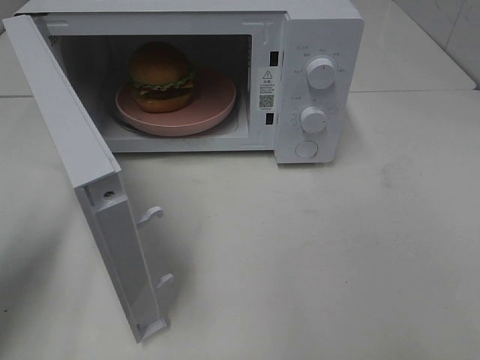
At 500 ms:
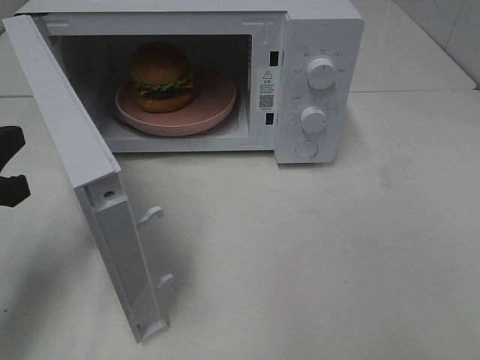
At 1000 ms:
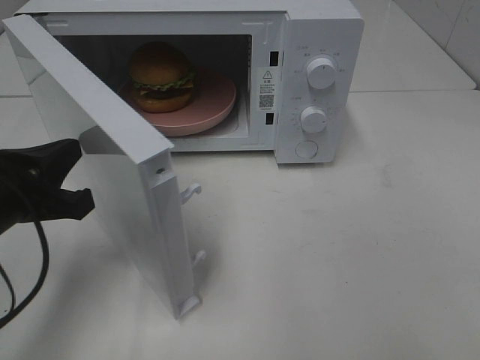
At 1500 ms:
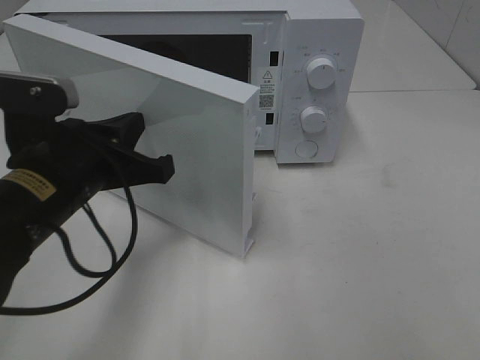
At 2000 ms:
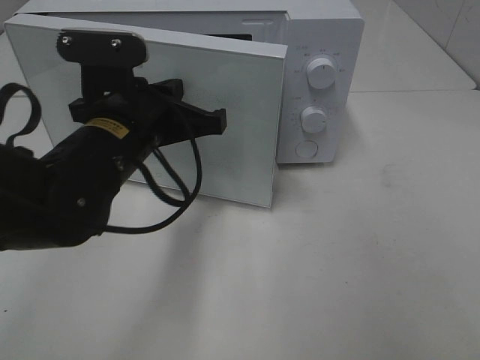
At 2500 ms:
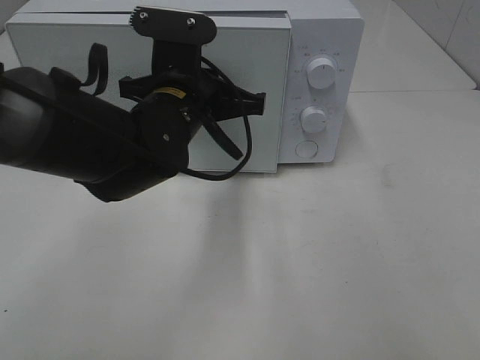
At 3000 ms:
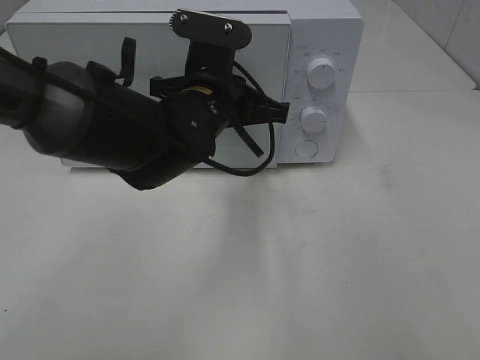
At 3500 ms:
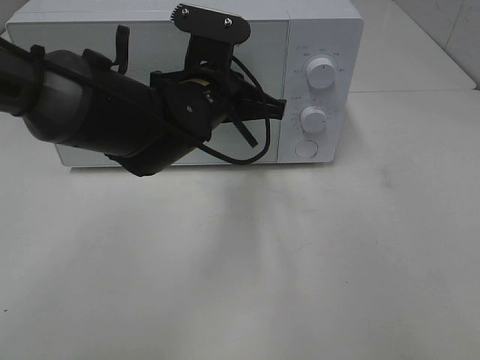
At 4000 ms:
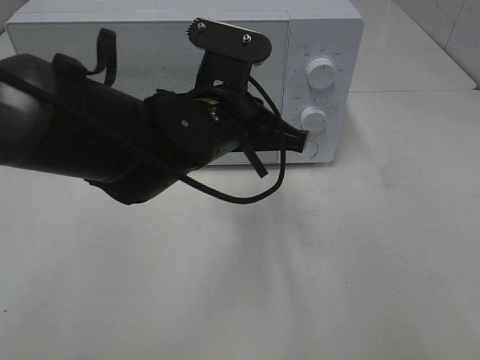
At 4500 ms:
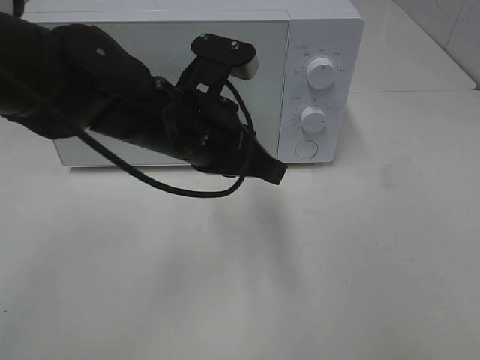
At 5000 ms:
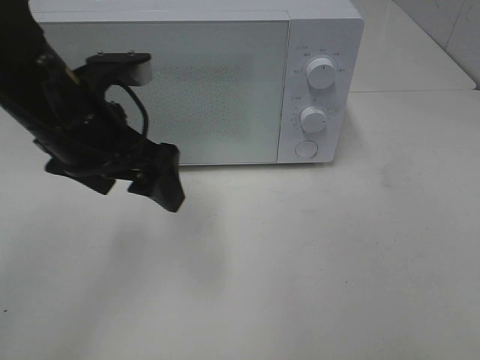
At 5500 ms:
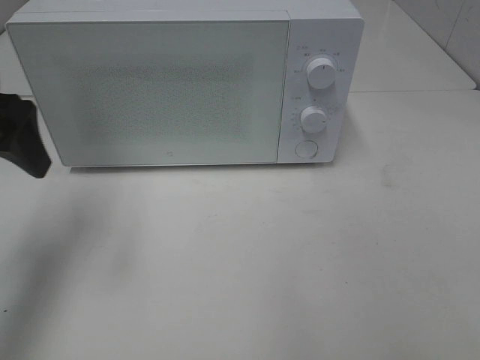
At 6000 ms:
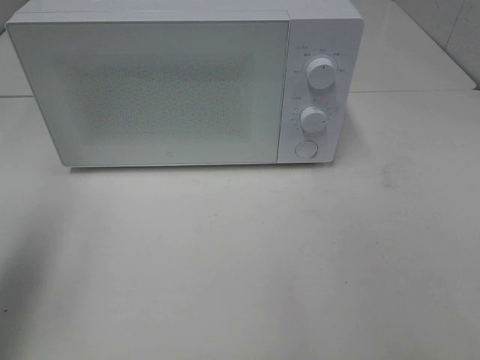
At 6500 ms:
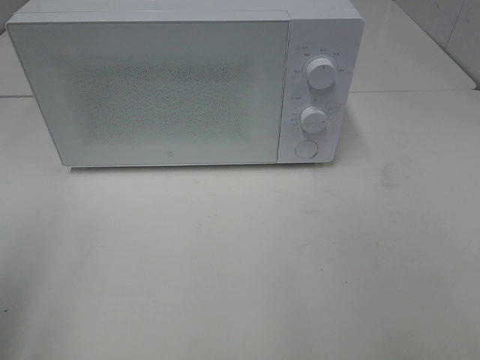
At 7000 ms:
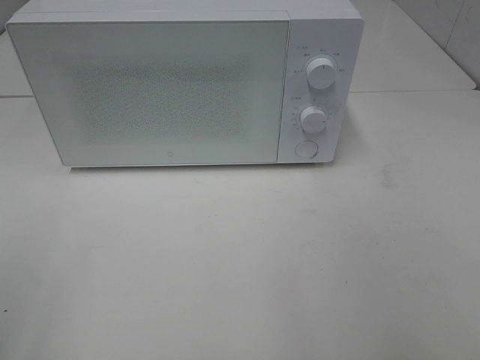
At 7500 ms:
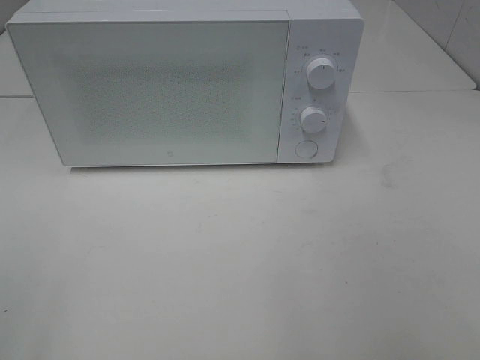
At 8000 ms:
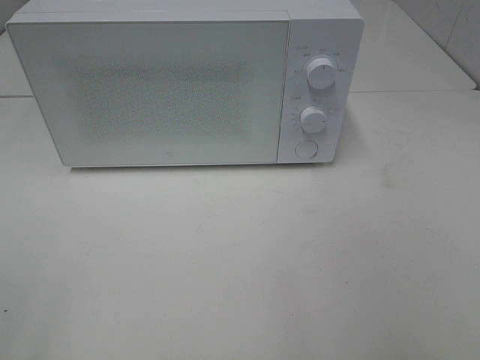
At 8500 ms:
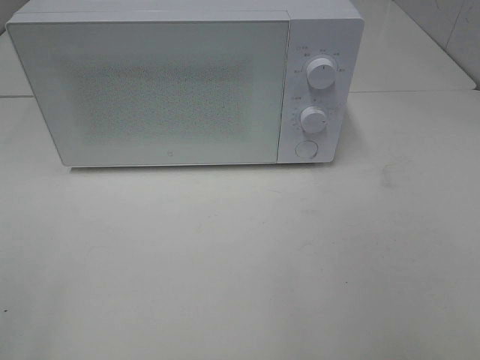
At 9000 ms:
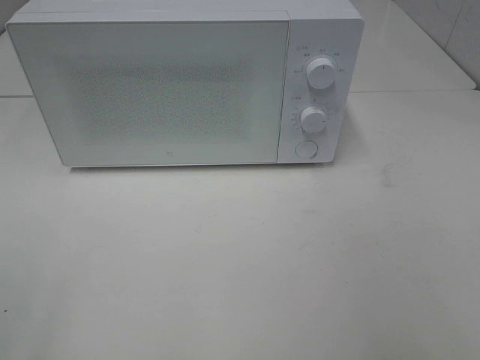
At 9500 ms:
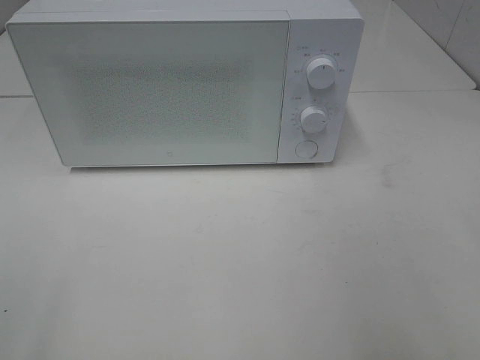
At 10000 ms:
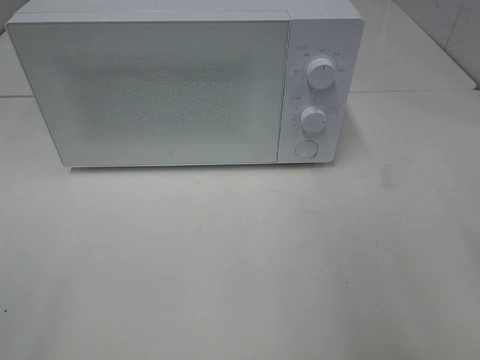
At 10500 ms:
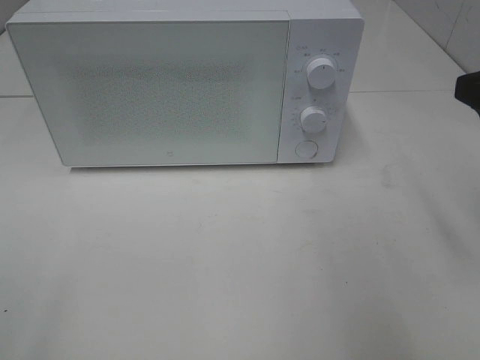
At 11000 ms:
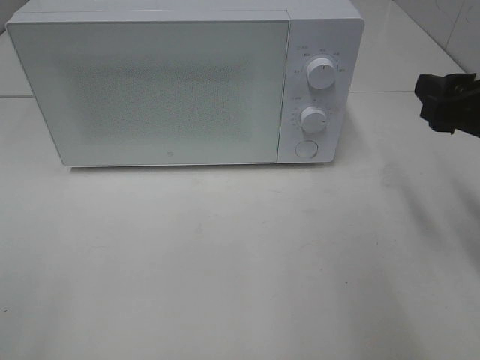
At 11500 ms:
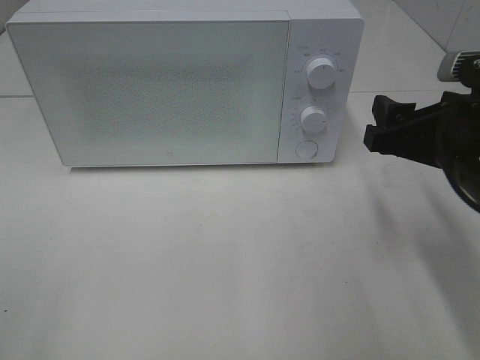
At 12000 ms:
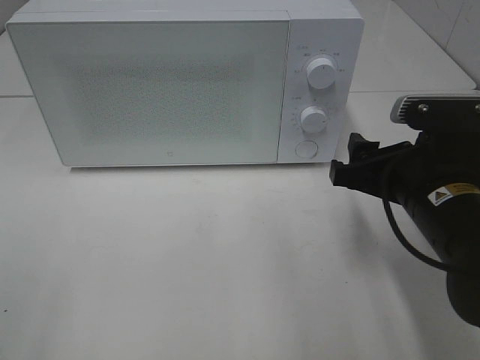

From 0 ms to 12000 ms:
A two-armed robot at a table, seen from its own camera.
Task of the whole recording: Heat the burger.
Step, from 0 ms to 4000 ms: Left hand: close the microwave door.
From 0 ms to 2000 ms: The left gripper is displaced to the right and forward by some 25 cm.
From 2000 ms to 4000 ms: The left gripper moves to the right, some 10 cm.
From 4000 ms to 6000 ms: The left gripper heads to the left and upward, covering approximately 30 cm, and opens.
From 6000 ms to 8000 ms: The left gripper shifts about 20 cm backward.
From 10000 ms to 12000 ms: The right gripper moves downward, to the left and forward, approximately 20 cm.

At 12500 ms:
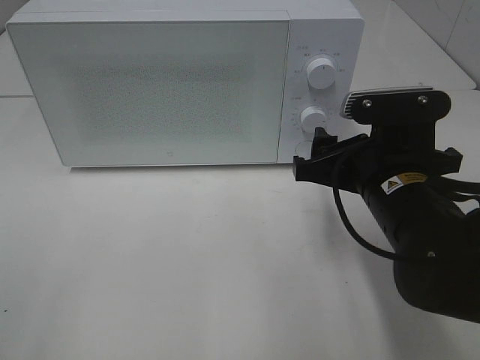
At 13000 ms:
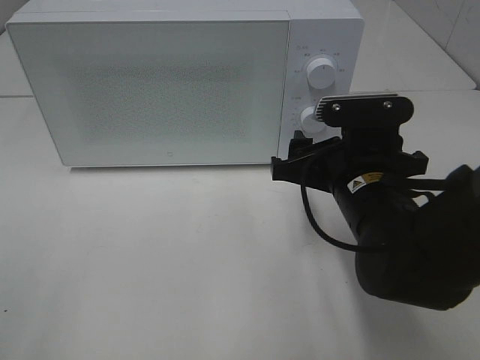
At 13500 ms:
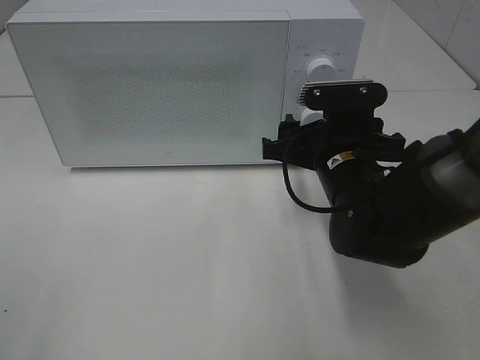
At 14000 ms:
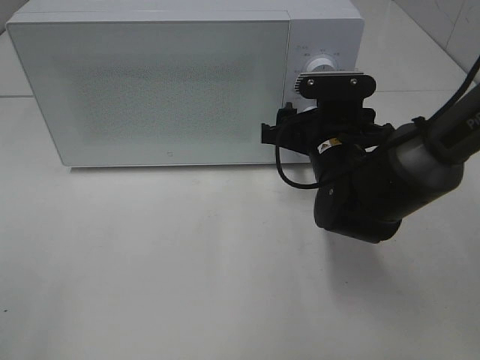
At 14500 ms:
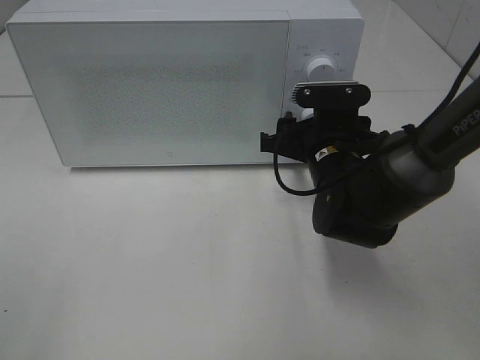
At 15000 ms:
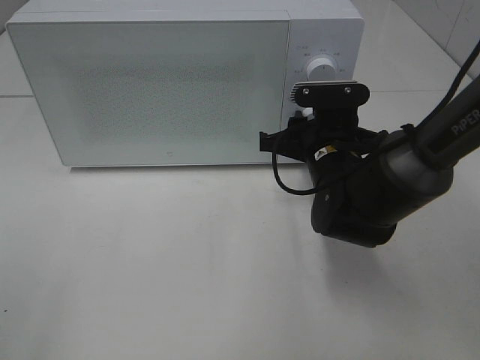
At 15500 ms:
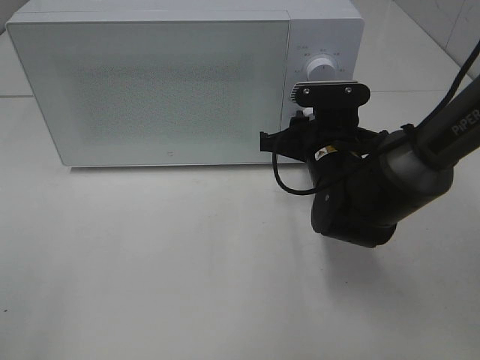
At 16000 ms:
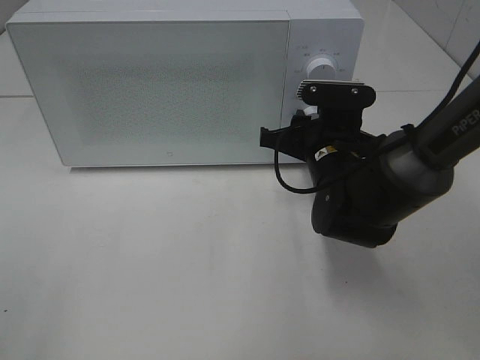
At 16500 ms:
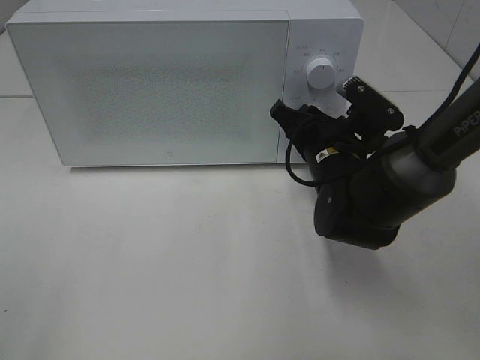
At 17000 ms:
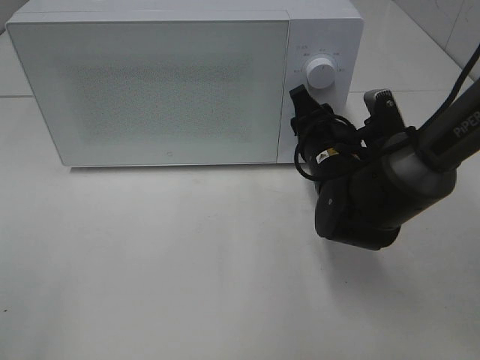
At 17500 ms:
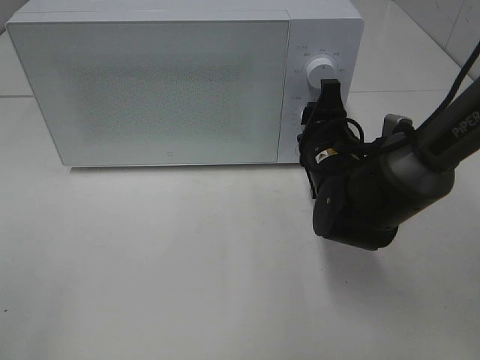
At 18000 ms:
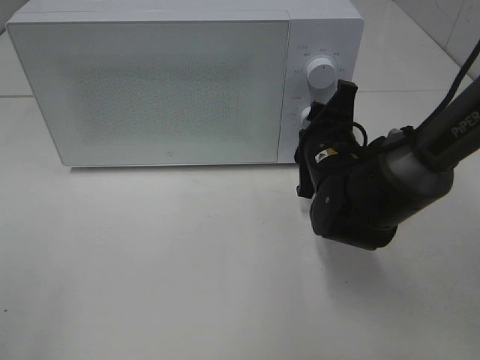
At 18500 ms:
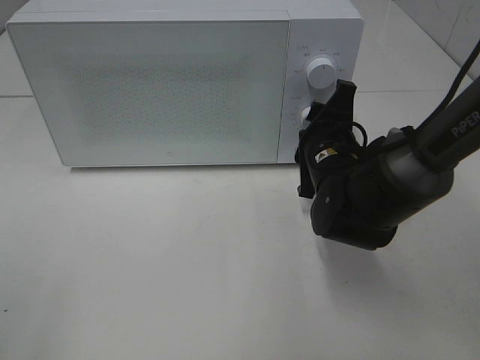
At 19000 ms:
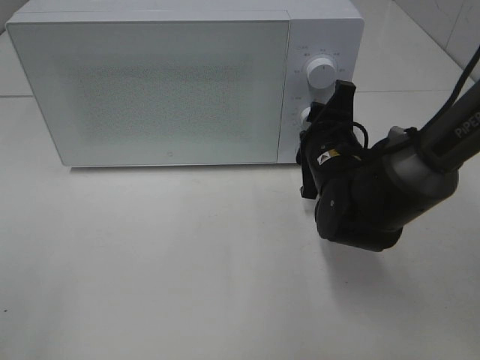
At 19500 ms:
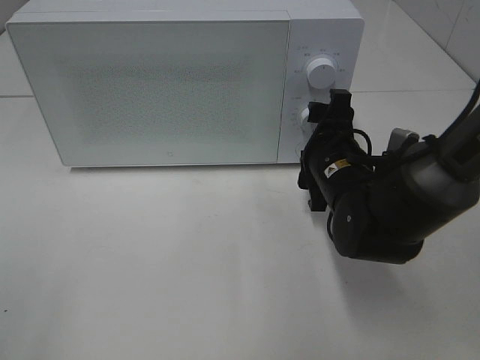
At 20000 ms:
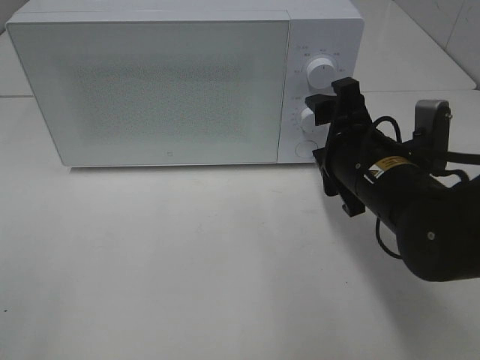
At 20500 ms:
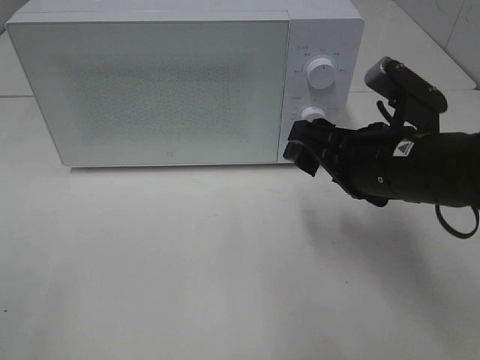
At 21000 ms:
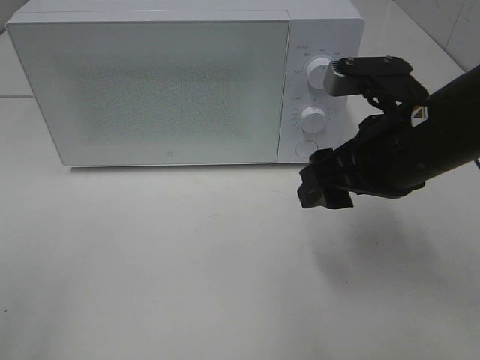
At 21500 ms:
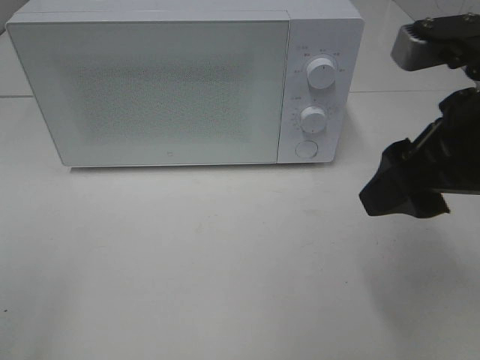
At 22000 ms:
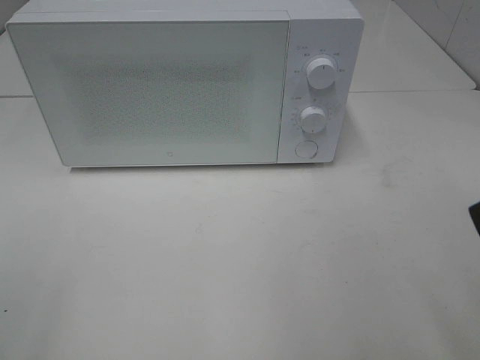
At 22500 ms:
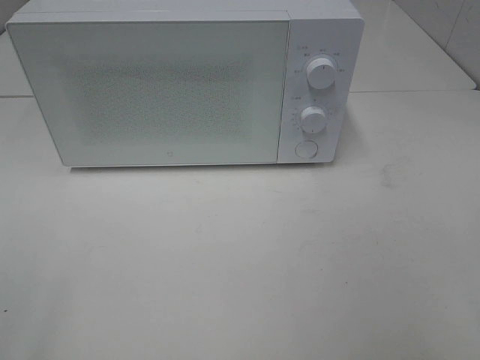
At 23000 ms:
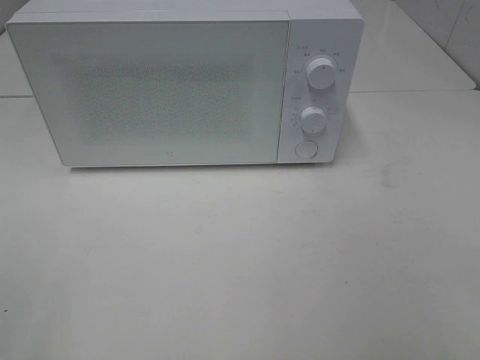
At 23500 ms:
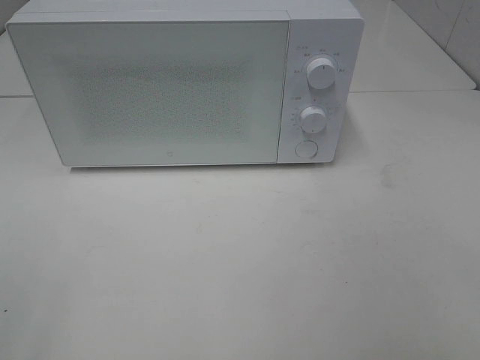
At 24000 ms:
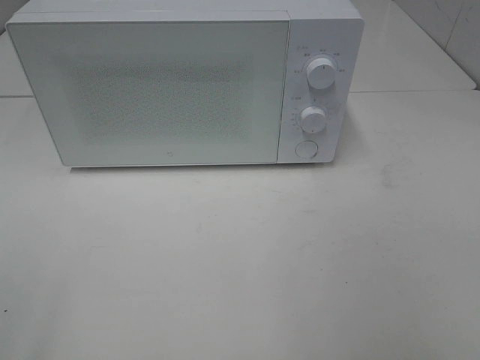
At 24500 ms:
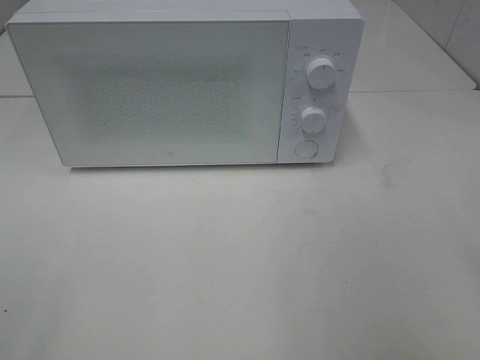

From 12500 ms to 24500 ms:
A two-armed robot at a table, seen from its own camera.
Task of the whole recording: Heat the burger.
Step, from 12500 ms to 19000 ms: Right hand: twist timer button.
From 12500 ms to 14500 ms: The right gripper travels forward by about 10 cm.
From 18500 ms to 20500 ms: The right gripper shifts approximately 10 cm backward and upward.
From 20500 ms to 22500 ms: The right gripper moves backward, to the right and upward, some 25 cm.

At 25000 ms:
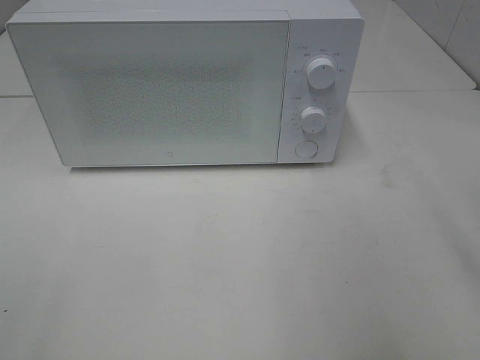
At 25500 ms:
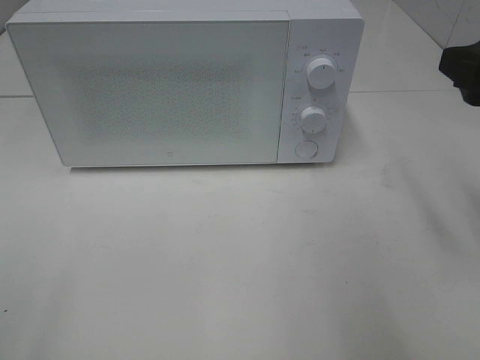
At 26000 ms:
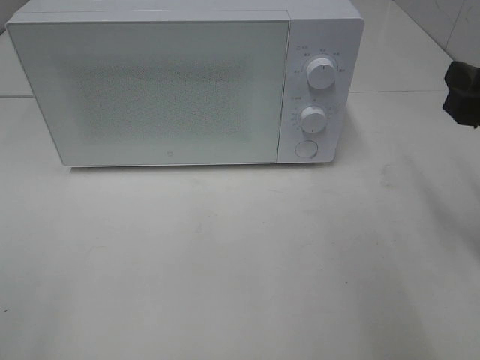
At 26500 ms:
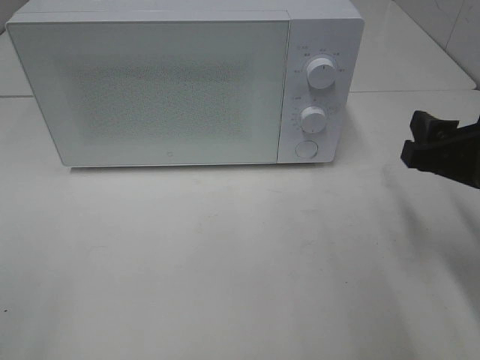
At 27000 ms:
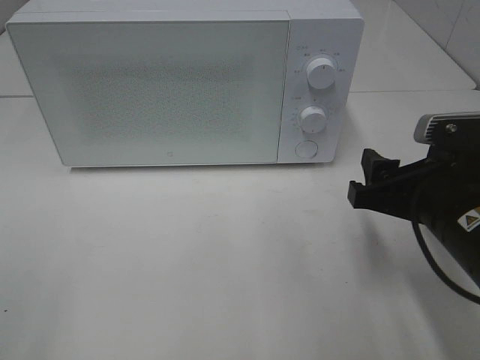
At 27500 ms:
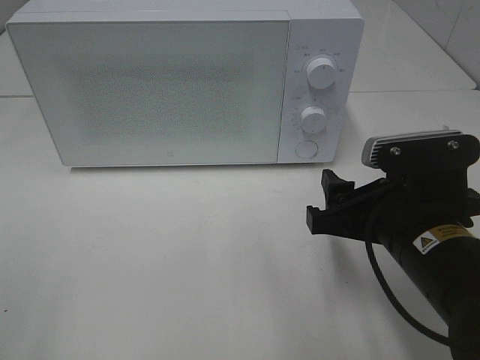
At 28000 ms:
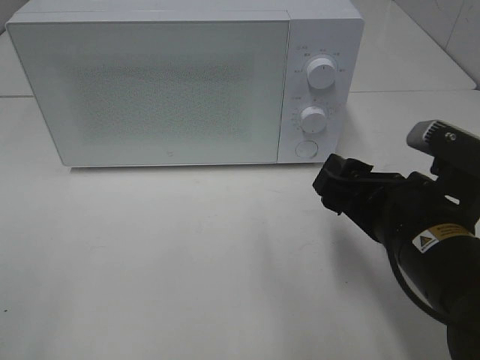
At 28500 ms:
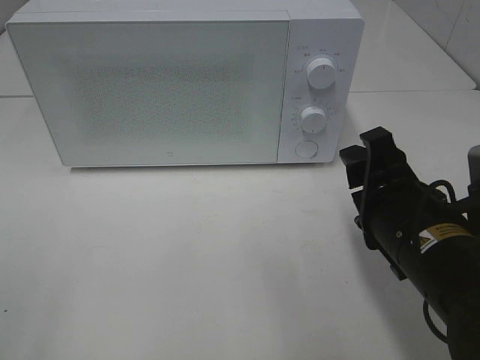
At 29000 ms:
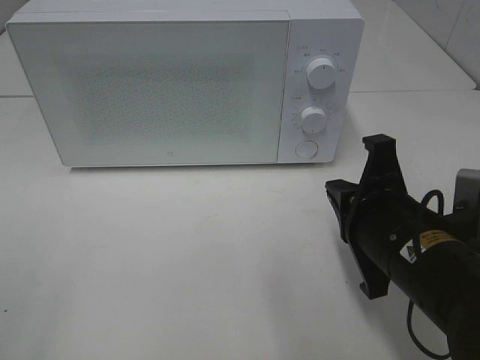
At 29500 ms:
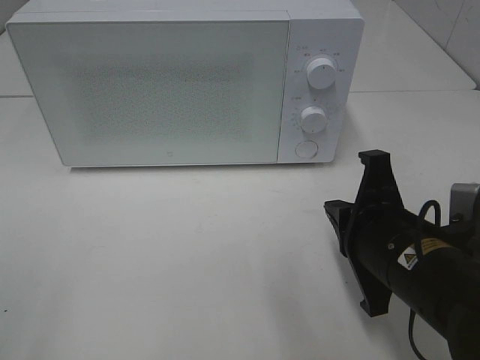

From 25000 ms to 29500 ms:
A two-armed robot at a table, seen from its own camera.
Task of the whole recording: Heat the burger.
From 25000 ms to 27000 ms: The right gripper shifts approximately 15 cm downward and to the left.
From 27000 ms to 29500 ms: The right gripper moves approximately 5 cm, and closes its fingers.
